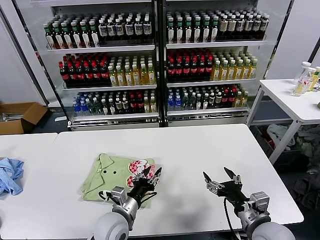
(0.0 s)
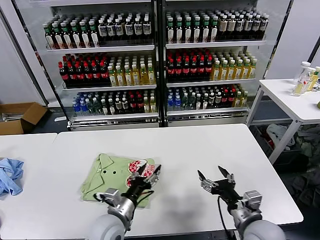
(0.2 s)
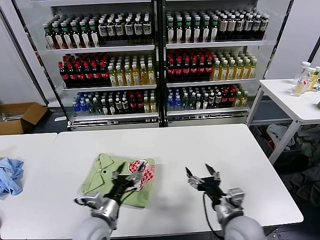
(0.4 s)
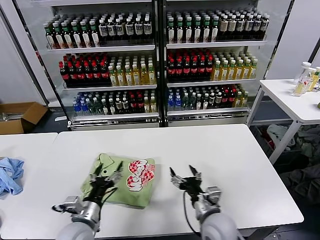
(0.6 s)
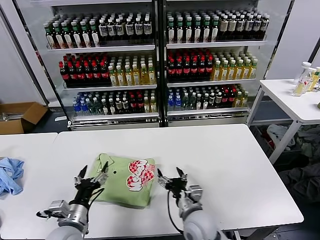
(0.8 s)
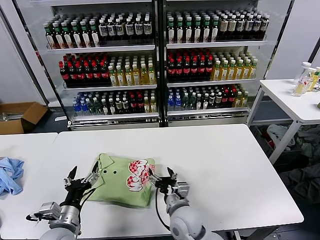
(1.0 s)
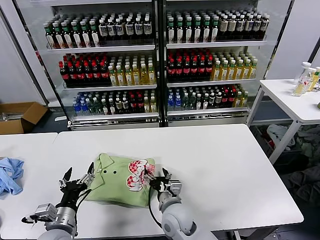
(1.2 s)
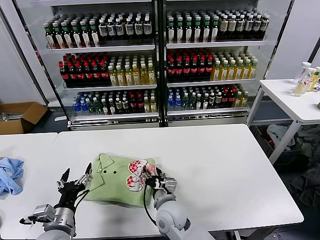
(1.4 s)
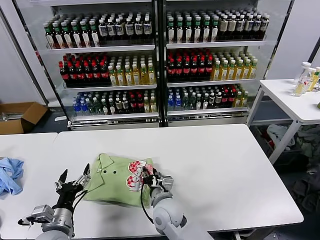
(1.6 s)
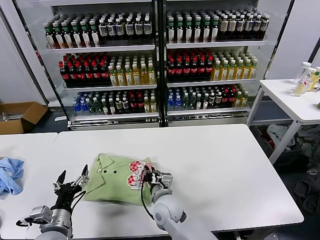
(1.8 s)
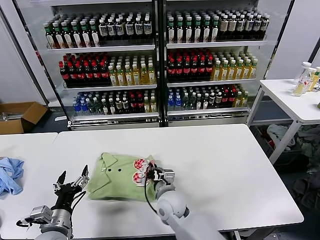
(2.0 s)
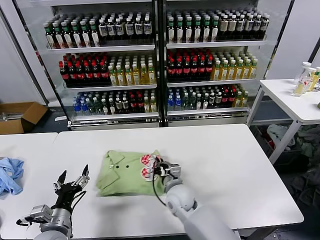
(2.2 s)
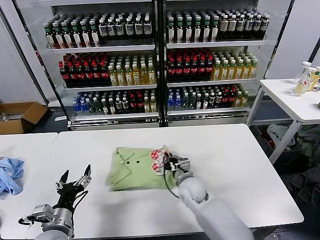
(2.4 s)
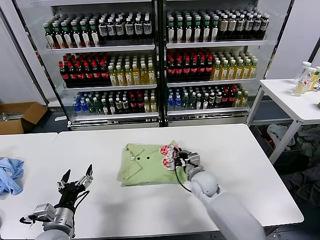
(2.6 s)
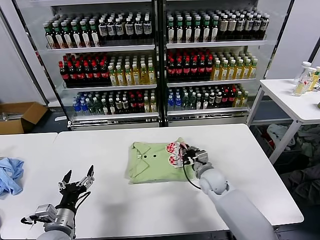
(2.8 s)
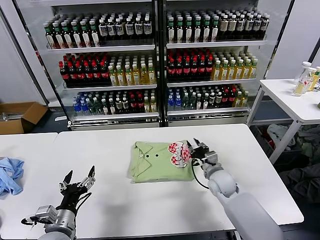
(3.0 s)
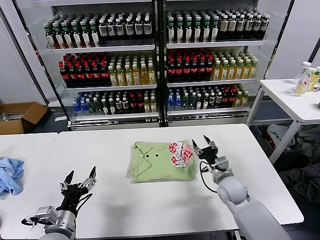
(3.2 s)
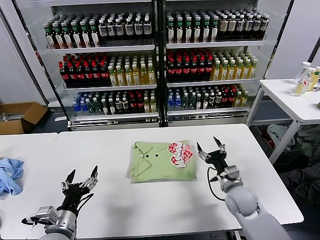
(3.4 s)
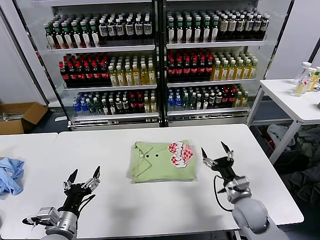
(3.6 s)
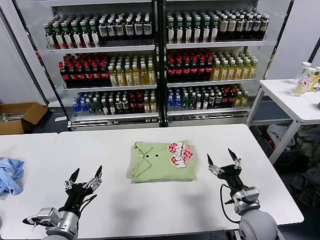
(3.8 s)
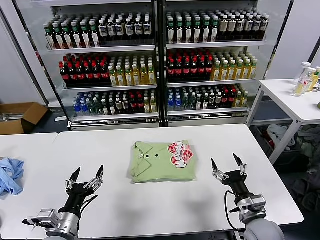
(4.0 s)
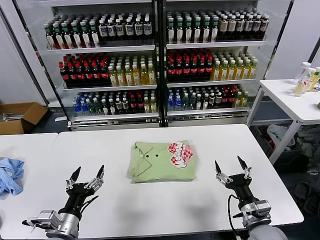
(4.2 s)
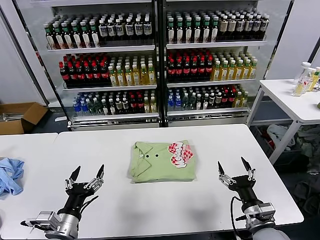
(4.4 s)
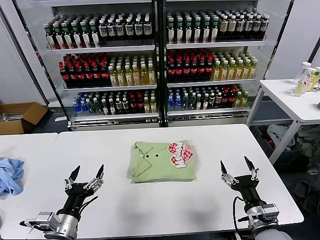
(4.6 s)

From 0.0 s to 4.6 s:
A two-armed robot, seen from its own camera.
Task of the whole recording: fold and organize the clothes.
Step, from 0.2 s to 3.0 s: Drag the clothes to the center of the table.
From 0.0 s to 1.6 s: The left gripper is displaced to the left by about 15 cm, and opens. The right gripper heads to the left and forward, covering roughly 30 cm, and closes.
From 1.6 s to 3.0 s: The right gripper goes approximately 20 cm to the right and forward.
From 3.0 s to 4.6 s: The right gripper moves backward, about 20 cm, and opens its fingers.
